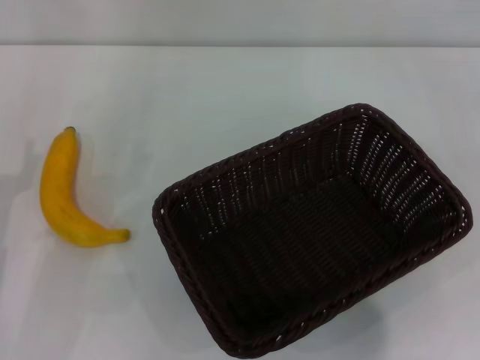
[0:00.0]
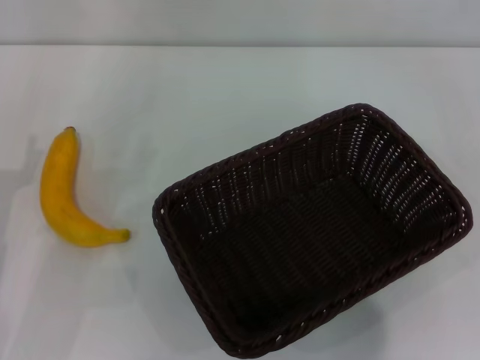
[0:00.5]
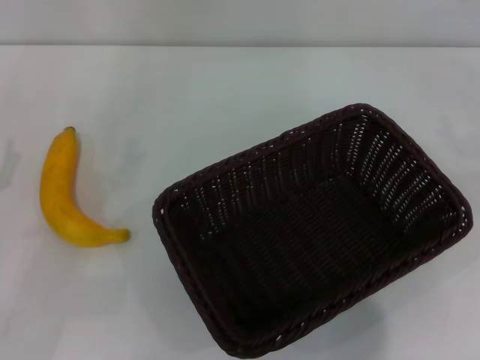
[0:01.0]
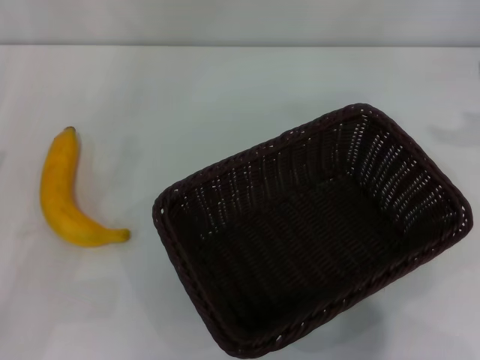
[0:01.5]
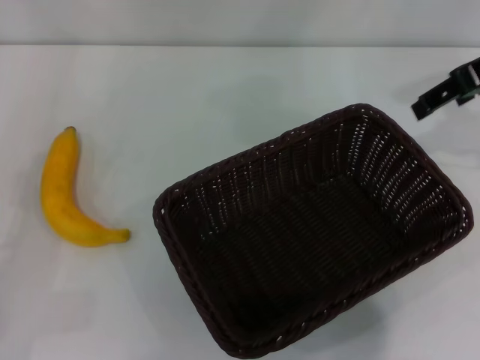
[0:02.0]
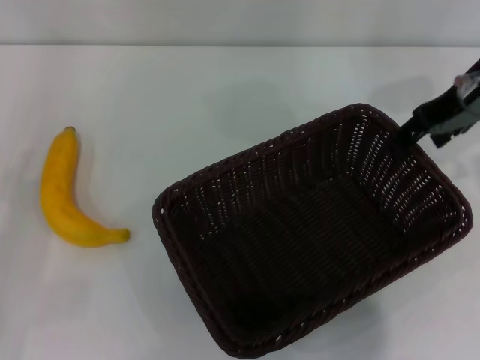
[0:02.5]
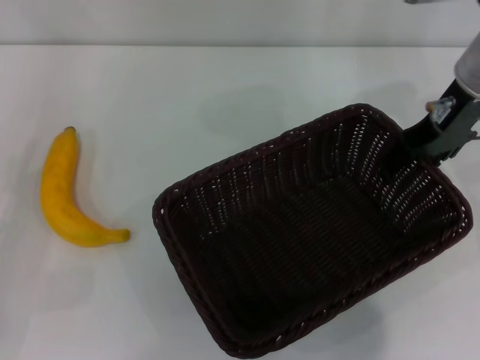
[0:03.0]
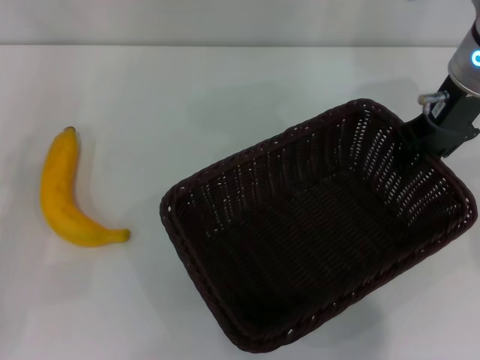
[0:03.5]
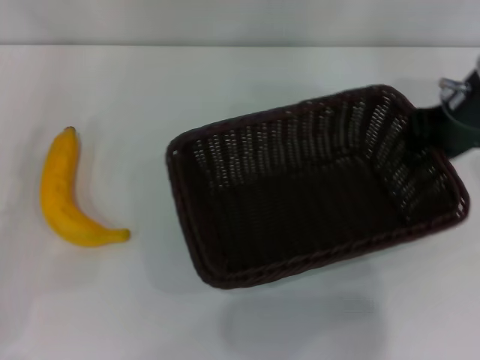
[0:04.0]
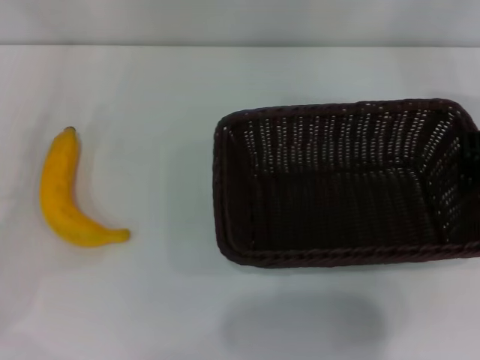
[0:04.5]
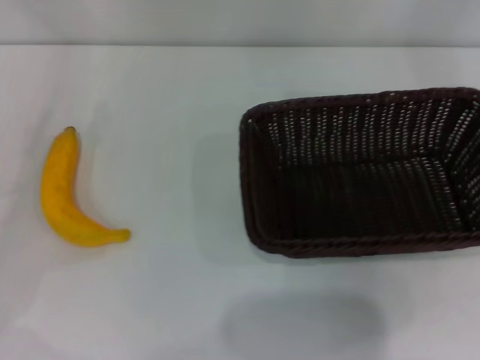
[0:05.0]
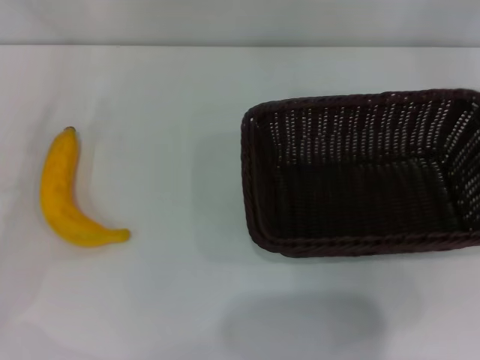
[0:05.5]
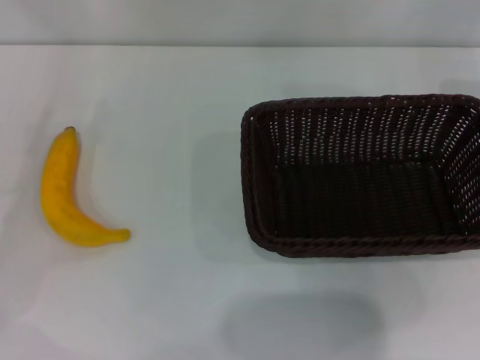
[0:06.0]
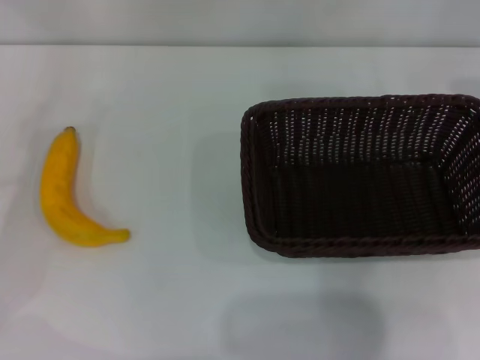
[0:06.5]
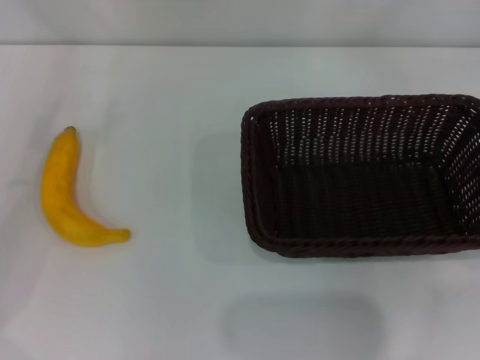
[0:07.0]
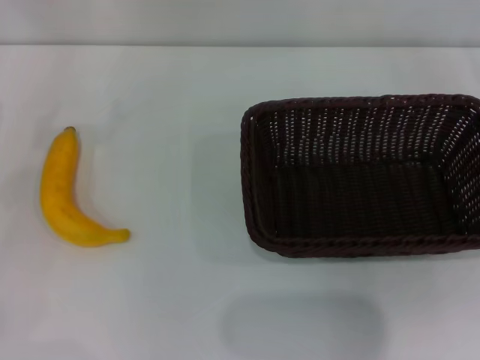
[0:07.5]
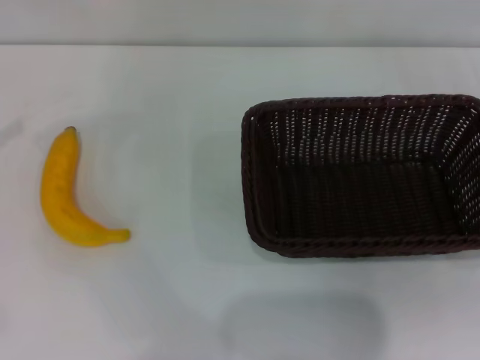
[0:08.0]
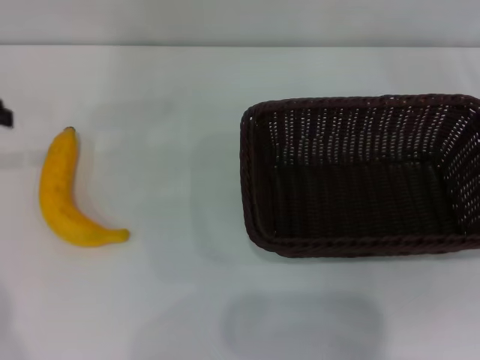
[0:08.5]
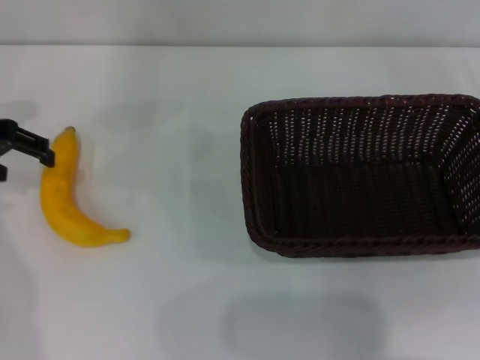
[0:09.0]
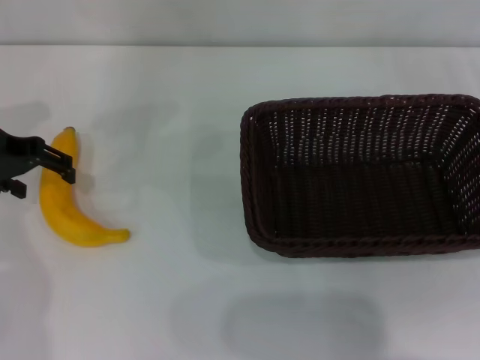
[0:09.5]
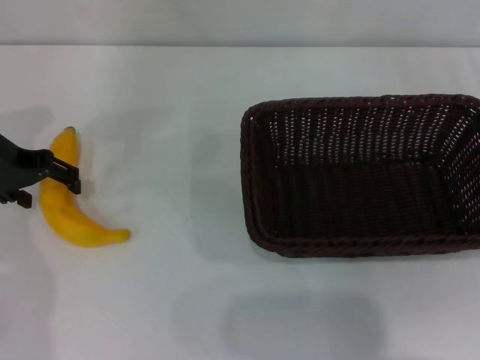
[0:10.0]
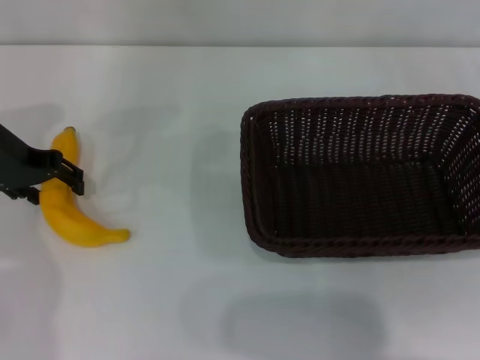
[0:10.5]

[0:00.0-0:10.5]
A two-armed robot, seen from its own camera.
Step, 0:00.0 to 0:04.0: Pick up the dark basket with the right gripper.
Step, 0:04.5 to 0:06.5: Place the dark basket in the center of view with the right gripper.
0:00.0 to 0:02.0: The right gripper shifts roughly 30 cm to the left, upward and forward.
0:02.0 to 0:04.0: The right gripper shifts approximately 5 cm downward, and closes its fingers, while the left gripper shifts by roughly 5 cm.
0:04.0 to 0:06.5: The right gripper goes roughly 10 cm to the right and upward.
0:08.5 to 0:10.5: The left gripper shifts approximately 10 cm downward and to the right.

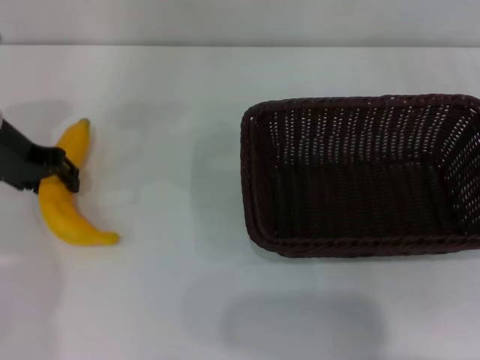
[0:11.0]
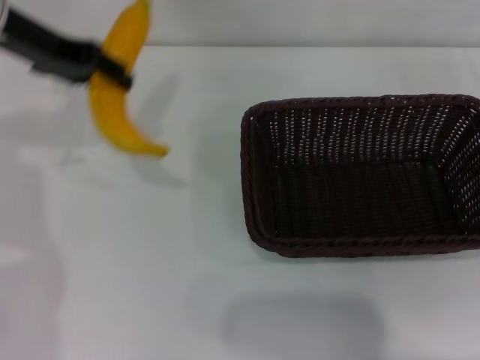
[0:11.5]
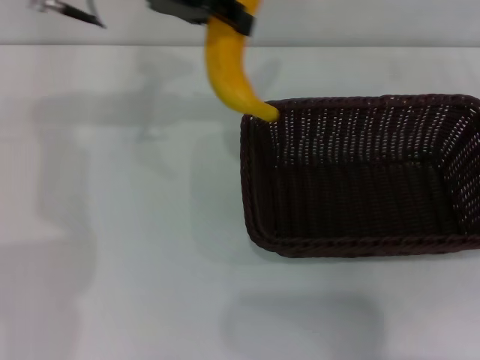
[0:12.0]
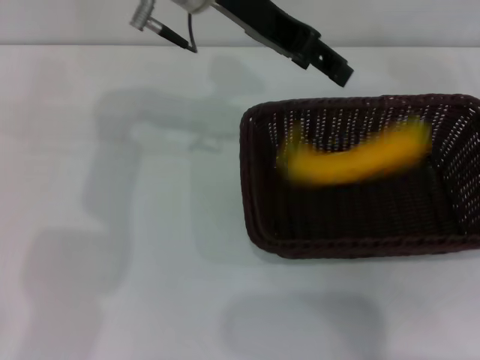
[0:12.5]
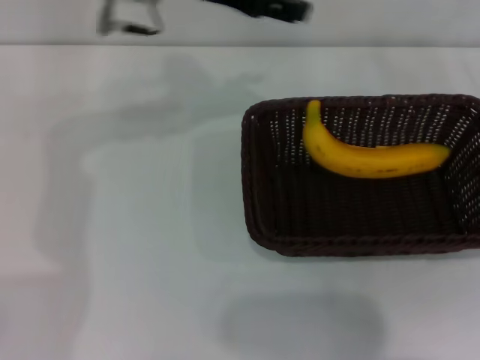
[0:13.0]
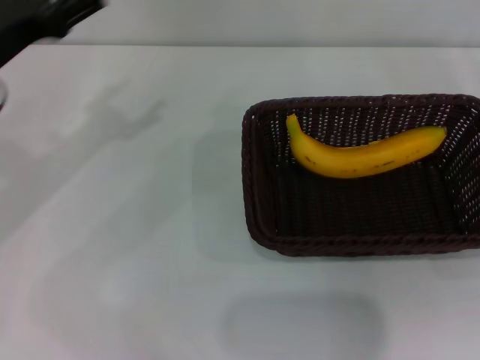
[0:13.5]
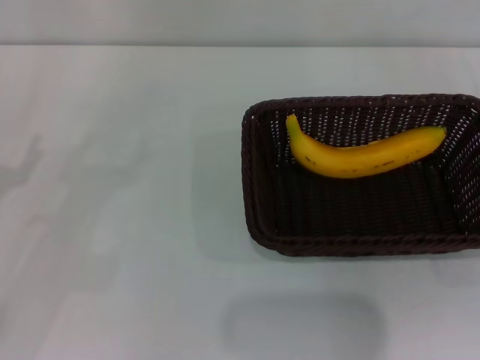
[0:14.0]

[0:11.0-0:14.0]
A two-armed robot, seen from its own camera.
Step, 0:11.5 to 0:12.5: Place the banana into the light basket with the left gripper.
0:11.0 to 0:12.5: The left gripper moves to the right and upward, roughly 25 cm, and opens up.
0:12.5 to 0:14.0: The left gripper travels to the left, downward and backward by roughly 40 cm, and opens.
